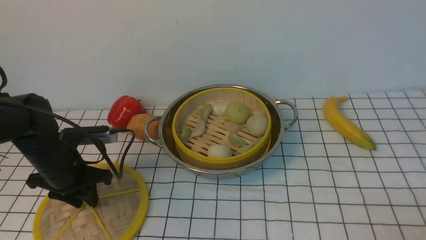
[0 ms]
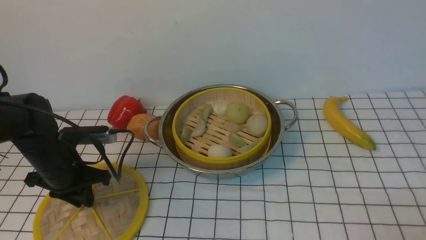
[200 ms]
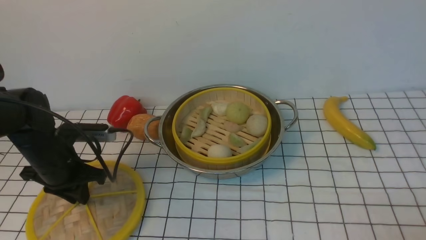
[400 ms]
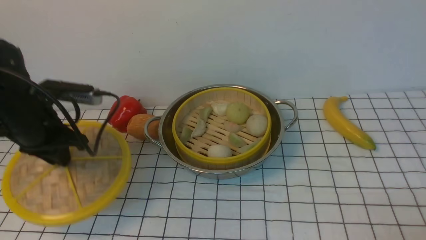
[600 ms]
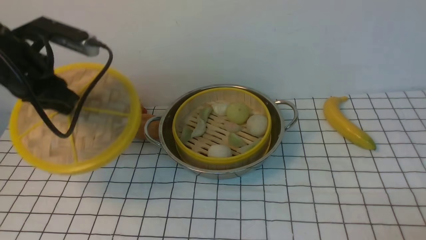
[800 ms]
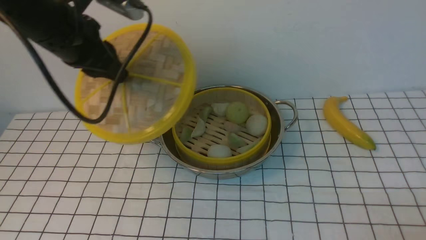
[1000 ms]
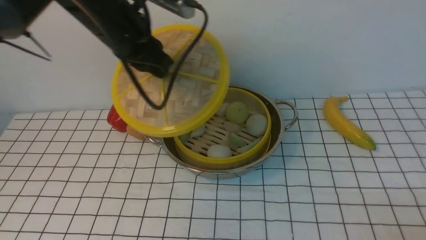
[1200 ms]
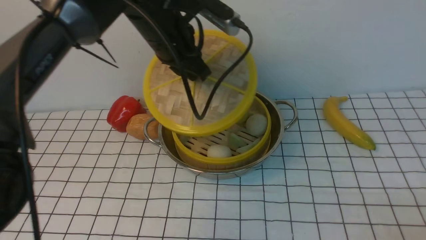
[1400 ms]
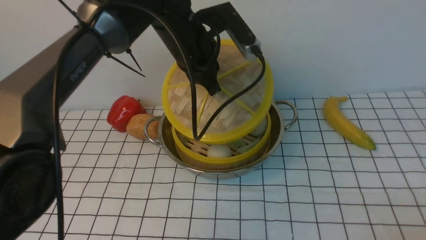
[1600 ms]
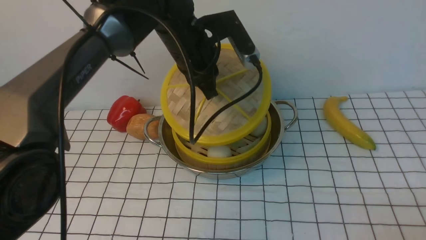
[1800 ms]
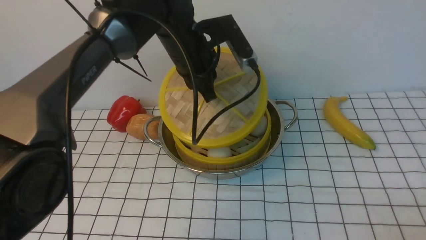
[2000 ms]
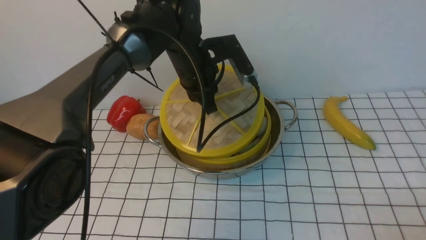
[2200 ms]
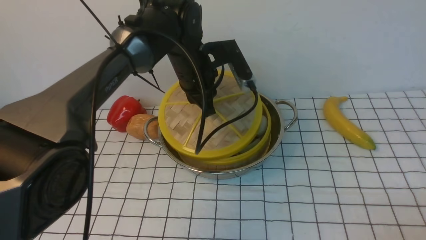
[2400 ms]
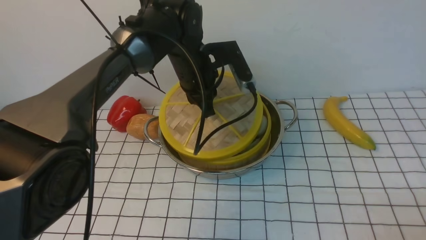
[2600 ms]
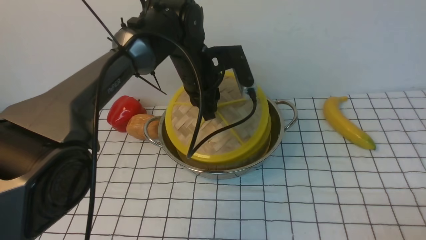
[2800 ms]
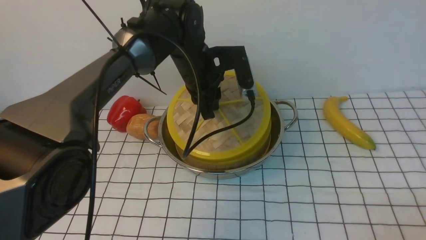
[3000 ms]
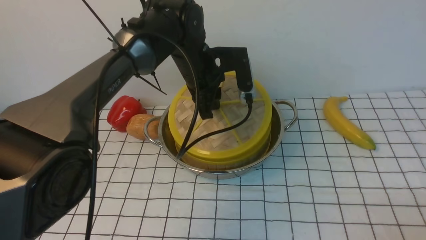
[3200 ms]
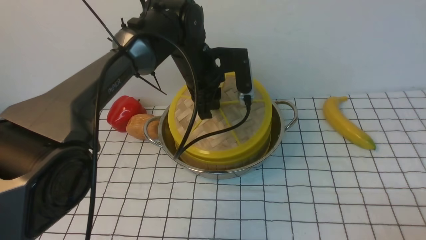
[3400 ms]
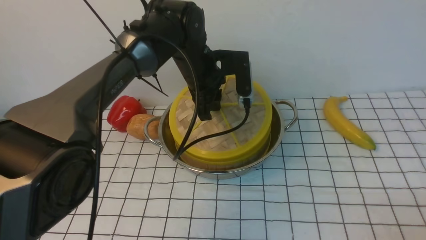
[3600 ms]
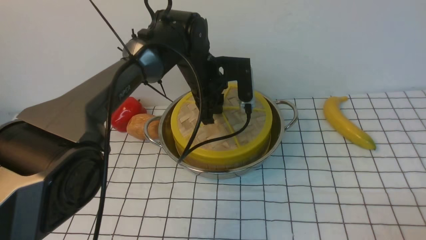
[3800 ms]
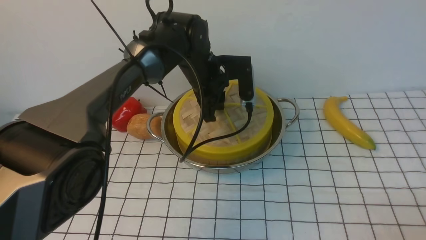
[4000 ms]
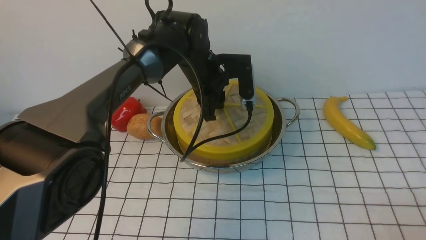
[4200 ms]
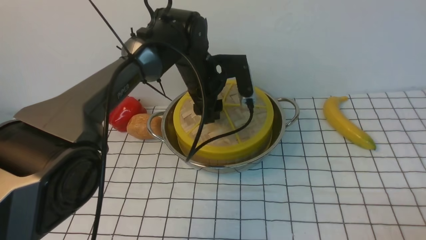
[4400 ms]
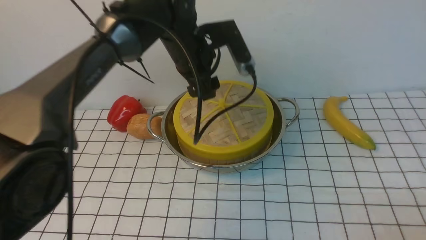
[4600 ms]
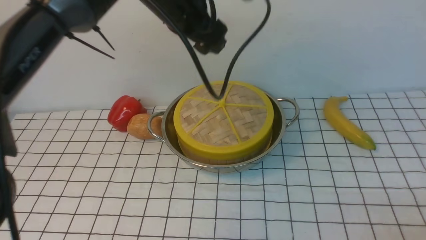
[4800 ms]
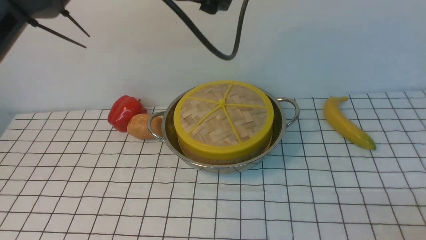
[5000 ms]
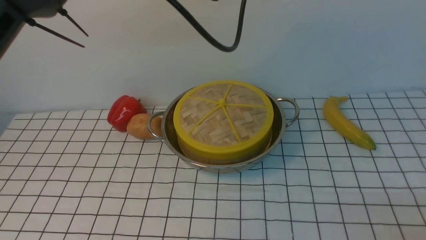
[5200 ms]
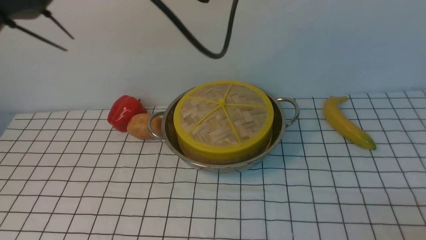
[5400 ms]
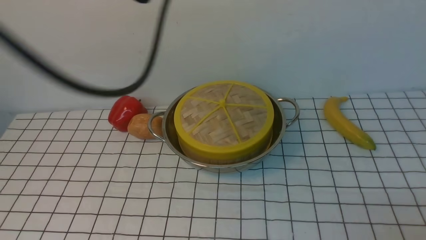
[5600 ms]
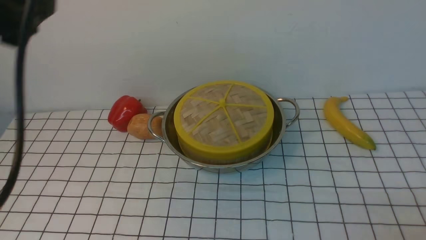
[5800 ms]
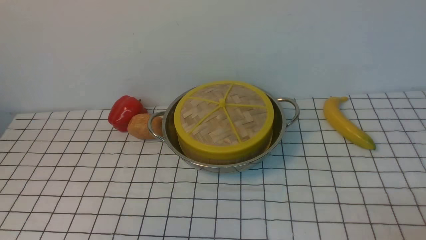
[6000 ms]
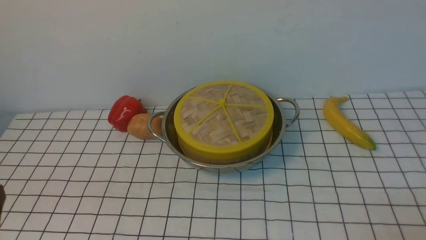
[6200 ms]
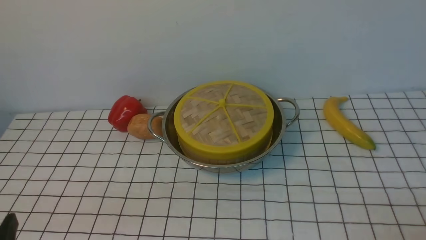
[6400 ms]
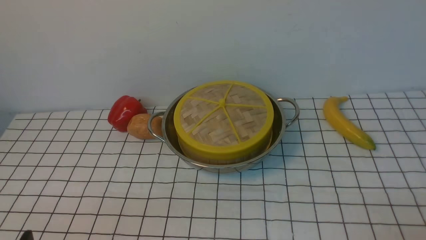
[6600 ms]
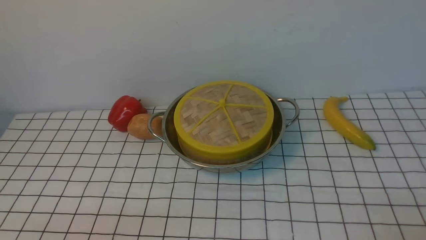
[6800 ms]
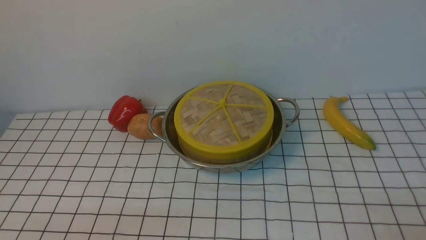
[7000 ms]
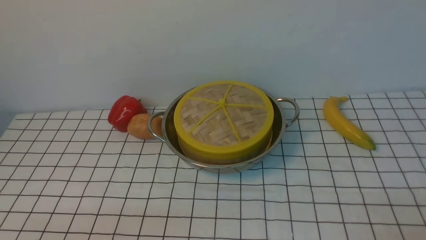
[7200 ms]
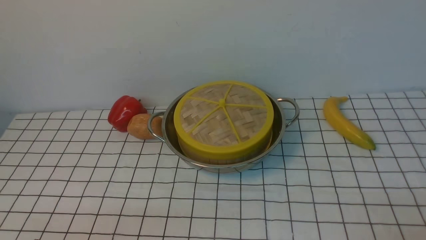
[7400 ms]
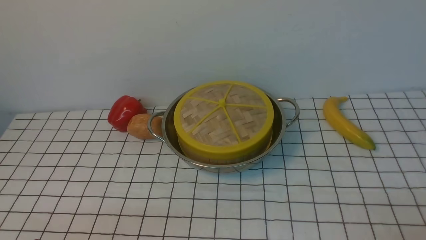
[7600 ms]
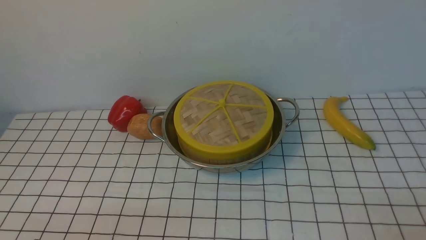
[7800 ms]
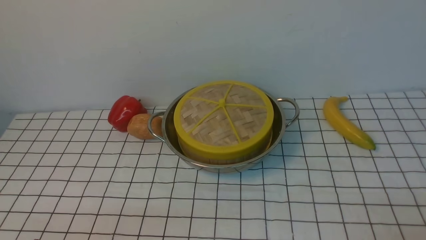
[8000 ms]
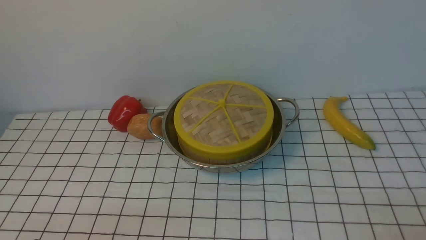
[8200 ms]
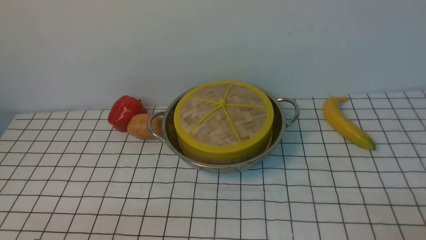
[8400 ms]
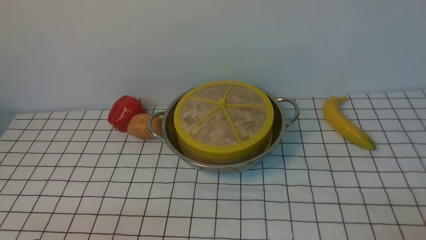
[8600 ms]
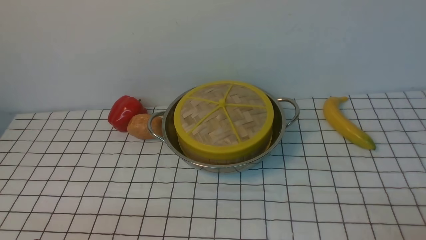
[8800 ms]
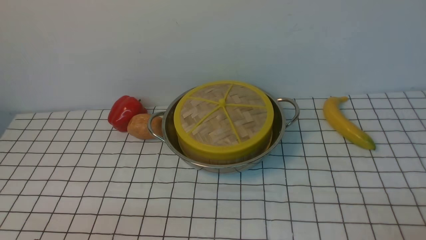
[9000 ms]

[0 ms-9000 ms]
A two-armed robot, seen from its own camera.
Task of the whole recording: place the steamer in the pot on the white tablecloth, and put the lid on the steamer.
Step, 600 ms to 4400 ms: use the left arm to place the steamer lid on the steamer.
0 ms to 1600 ms: The left gripper travels to the right, upward and forward by some 25 cm.
1600 ms to 3000 ms: The left gripper travels downward by about 5 cm.
3000 ms to 4400 ms: The left gripper opens its fingers.
4400 ms to 6000 ms: The left gripper is displaced backward, to the left and upward by some 40 cm, and opens up.
7600 ms to 9000 ms: The two grippers keep their place.

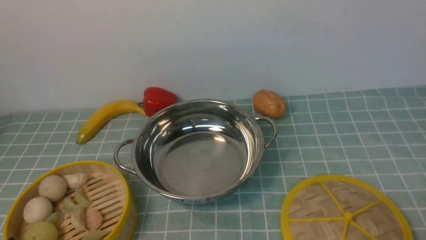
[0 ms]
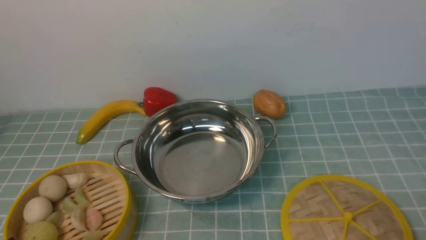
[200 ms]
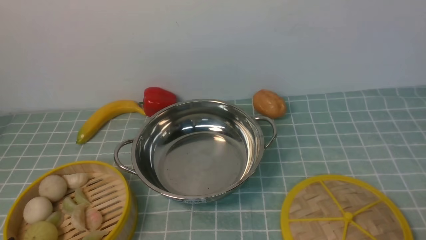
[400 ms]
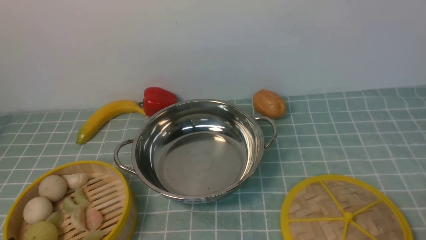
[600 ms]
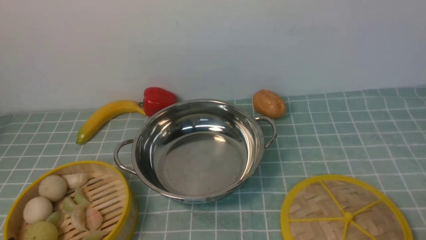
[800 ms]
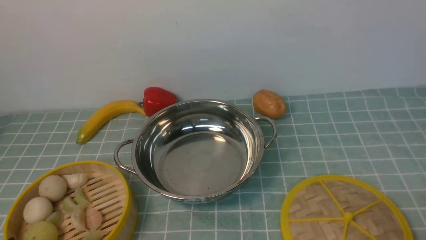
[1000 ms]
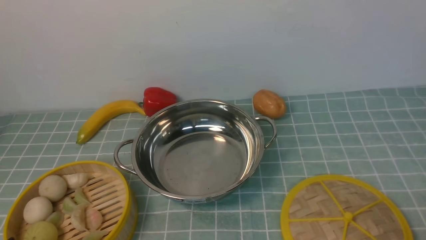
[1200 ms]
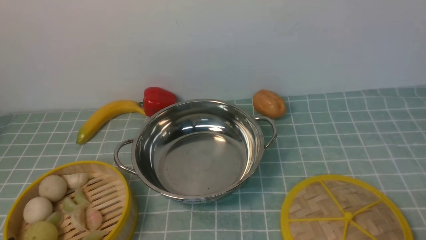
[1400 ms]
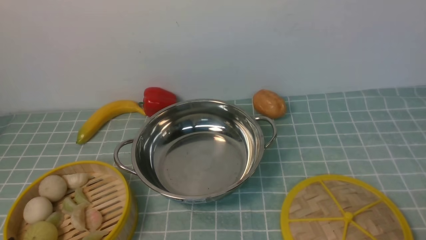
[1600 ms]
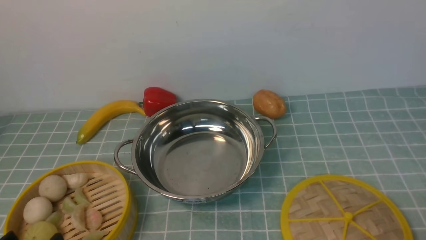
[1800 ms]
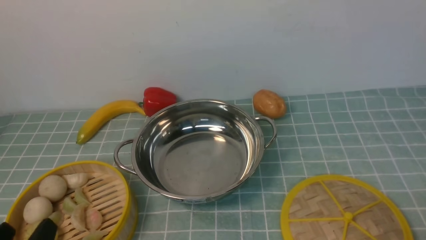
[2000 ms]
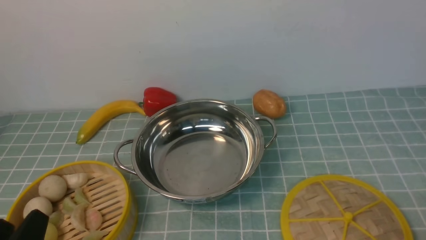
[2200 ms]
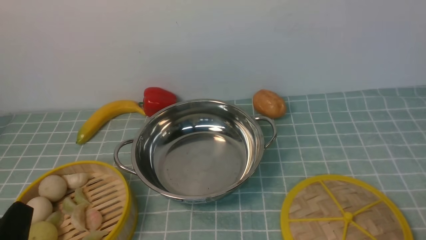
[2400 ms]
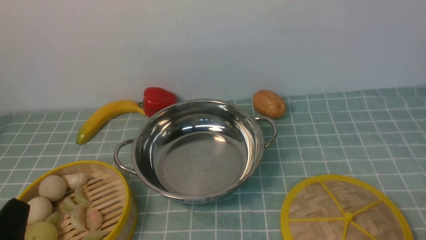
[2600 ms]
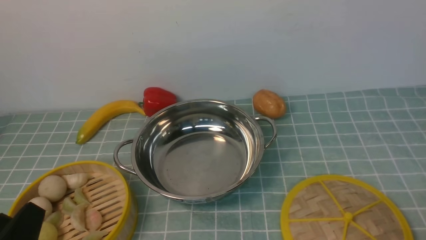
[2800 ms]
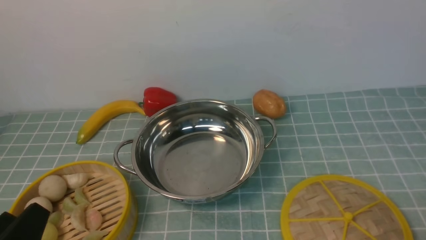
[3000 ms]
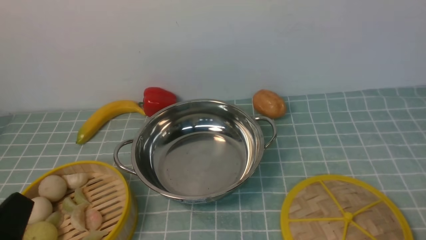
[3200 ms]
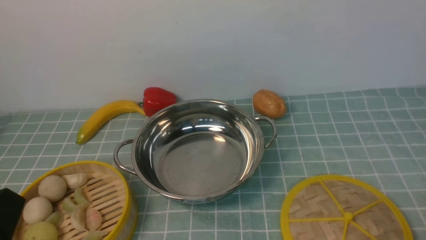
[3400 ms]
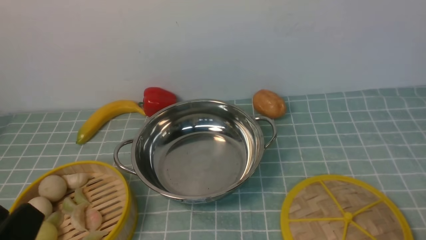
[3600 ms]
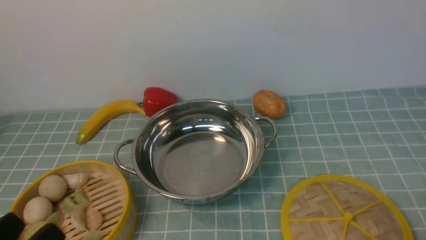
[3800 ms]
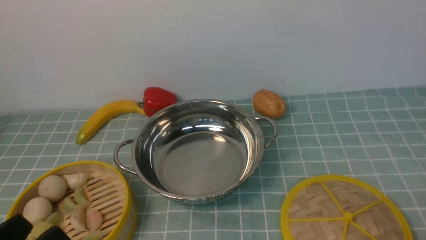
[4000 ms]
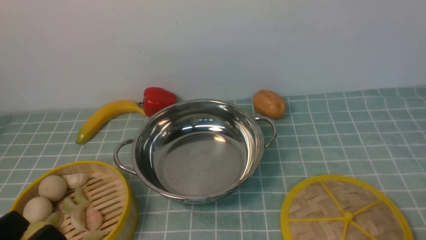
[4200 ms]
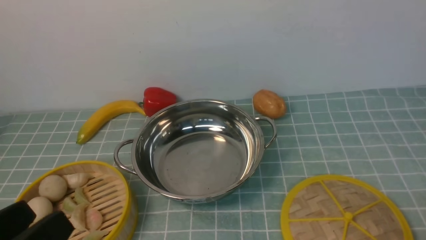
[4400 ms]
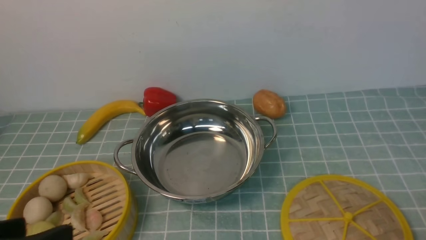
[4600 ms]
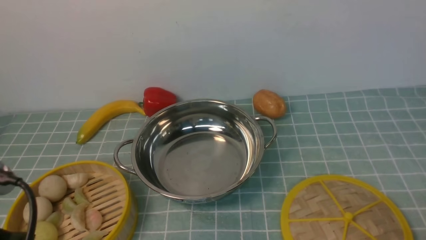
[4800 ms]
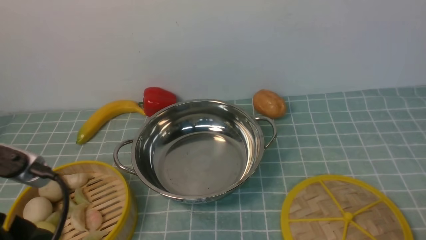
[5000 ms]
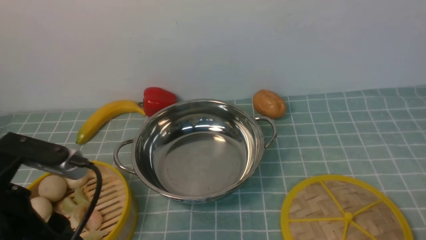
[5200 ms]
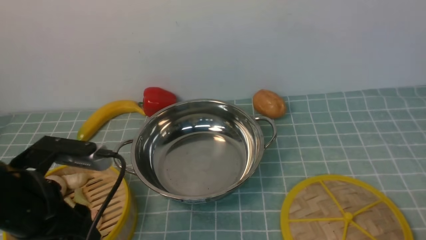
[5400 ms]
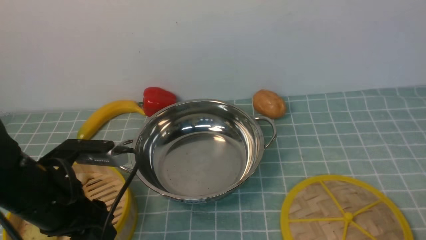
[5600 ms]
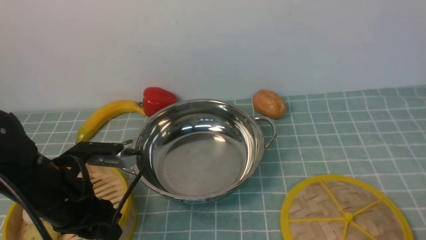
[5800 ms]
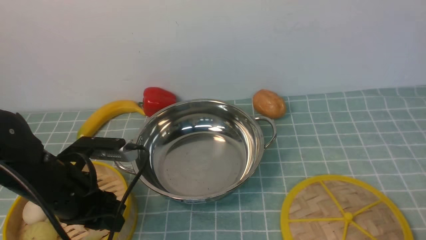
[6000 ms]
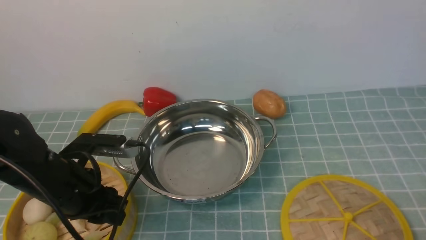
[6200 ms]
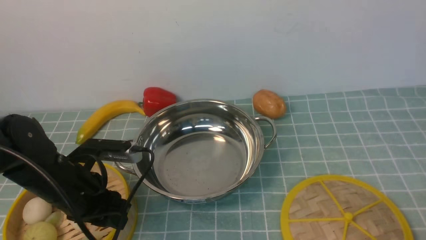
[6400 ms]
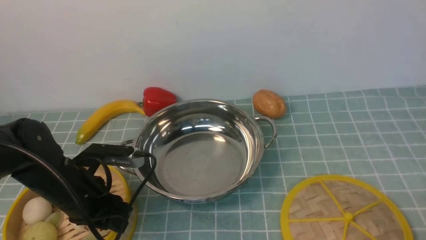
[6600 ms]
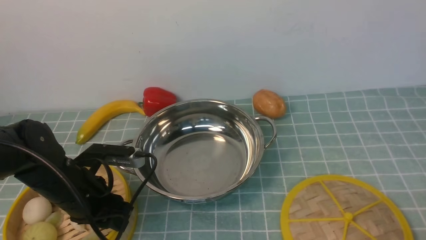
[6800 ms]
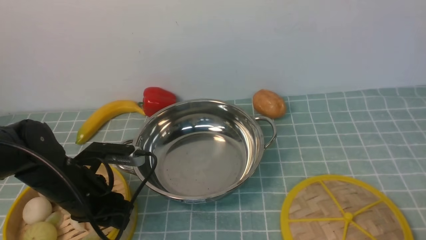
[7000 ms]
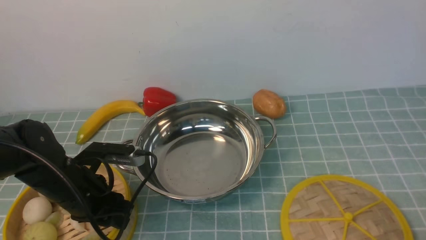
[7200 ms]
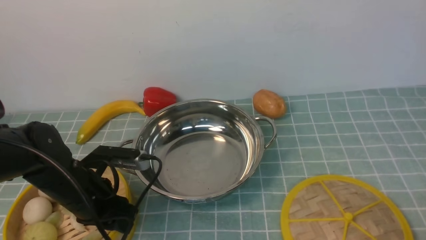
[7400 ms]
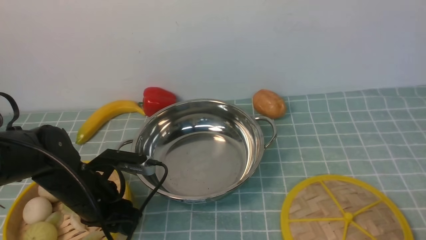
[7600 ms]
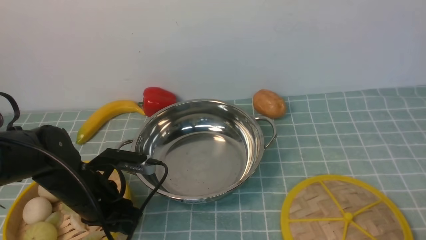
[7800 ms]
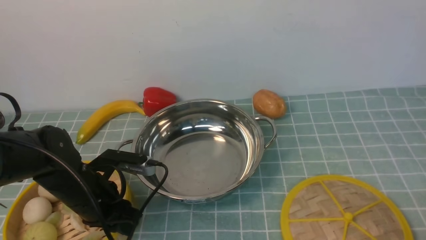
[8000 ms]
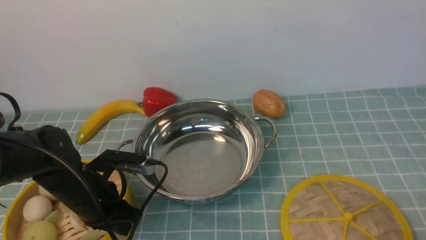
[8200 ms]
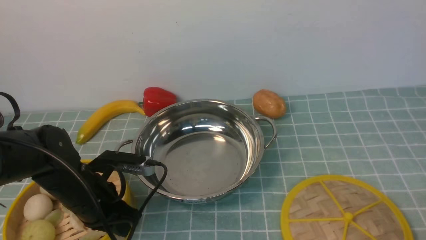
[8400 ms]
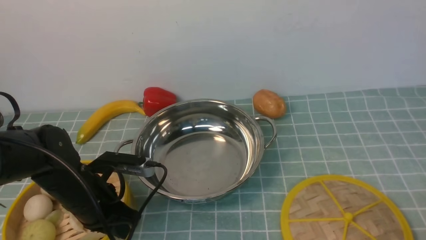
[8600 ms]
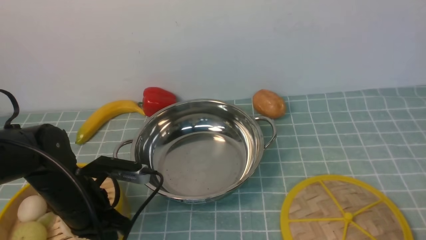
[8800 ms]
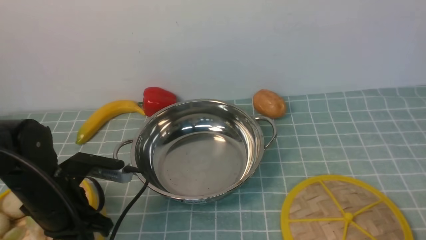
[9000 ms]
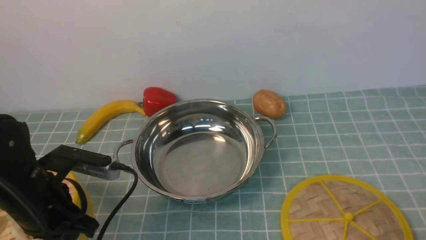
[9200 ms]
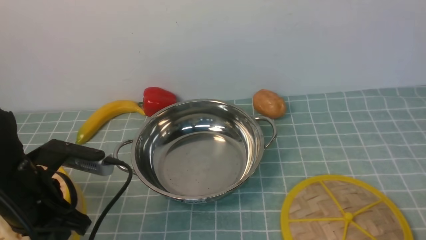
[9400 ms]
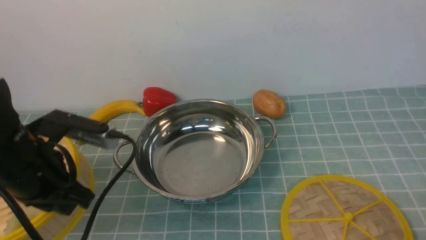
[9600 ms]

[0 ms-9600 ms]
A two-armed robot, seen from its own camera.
Task of the whole recording: place the steamer in the pot on the blue tablecloth, and put the lid on the steamer.
Step, 0 ms to 9000 ms: use the left arm to lift the steamer closest to it.
0 ms to 1600 ms: Both grippers stay put.
1600 ms to 3200 ms: The left gripper shifts about 5 cm upward.
3200 ms to 4800 ms: The left gripper shifts approximately 10 cm upward and forward.
4800 ms to 6400 ms: The left gripper goes approximately 20 cm forward and downward, and closes its fingers.
6400 ms to 8000 ms: The grippers stay close to where they were, moving slightly.
8000 ms to 9600 ms: The left gripper travels upward by roughly 15 cm.
